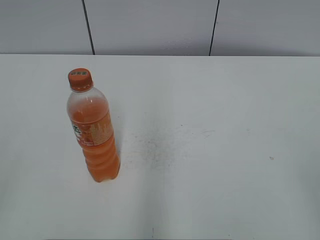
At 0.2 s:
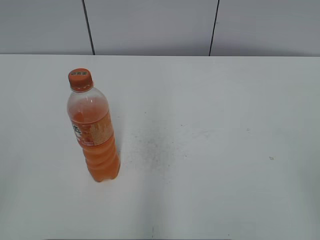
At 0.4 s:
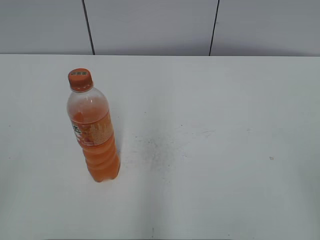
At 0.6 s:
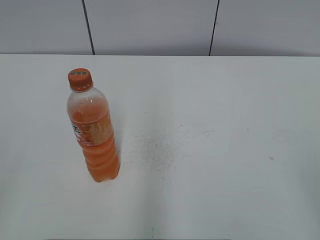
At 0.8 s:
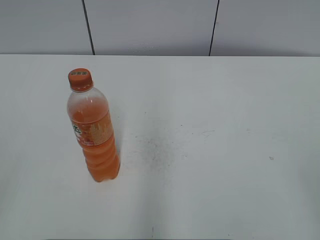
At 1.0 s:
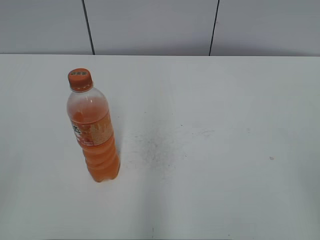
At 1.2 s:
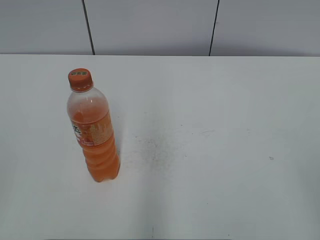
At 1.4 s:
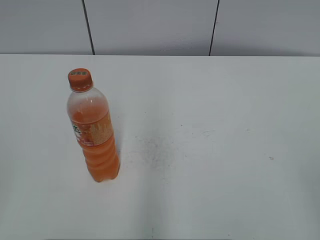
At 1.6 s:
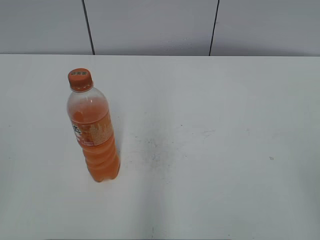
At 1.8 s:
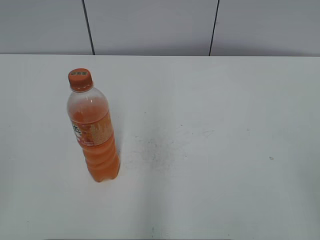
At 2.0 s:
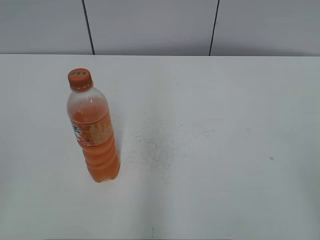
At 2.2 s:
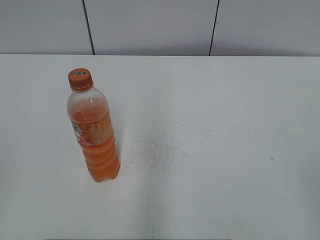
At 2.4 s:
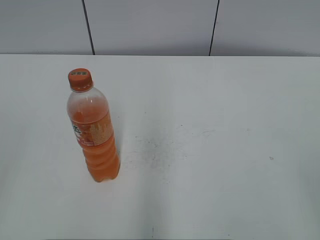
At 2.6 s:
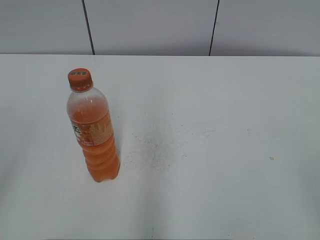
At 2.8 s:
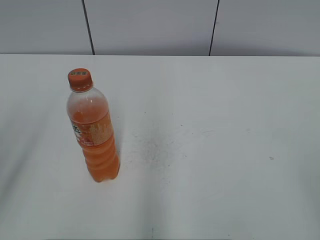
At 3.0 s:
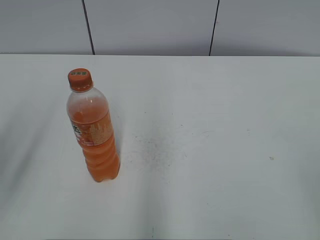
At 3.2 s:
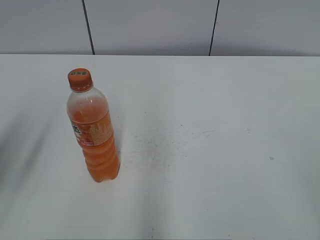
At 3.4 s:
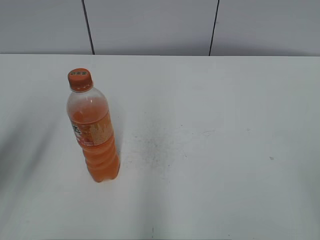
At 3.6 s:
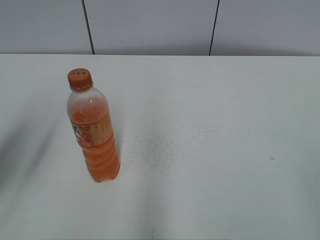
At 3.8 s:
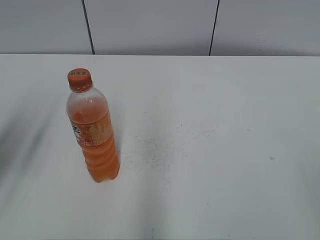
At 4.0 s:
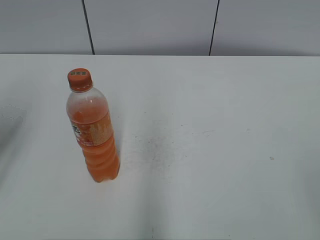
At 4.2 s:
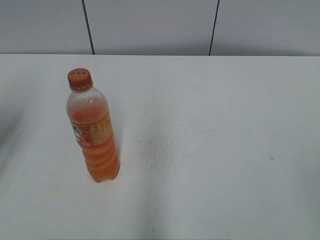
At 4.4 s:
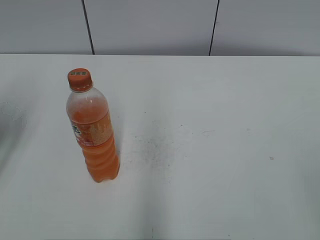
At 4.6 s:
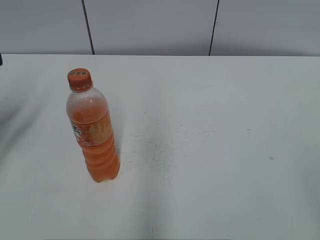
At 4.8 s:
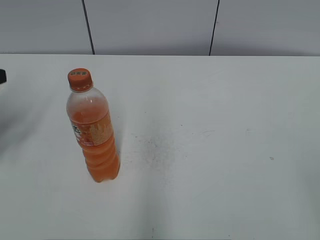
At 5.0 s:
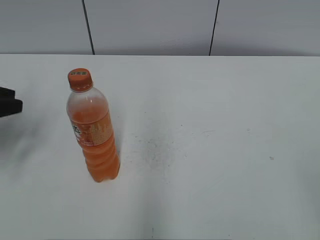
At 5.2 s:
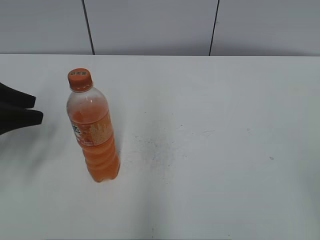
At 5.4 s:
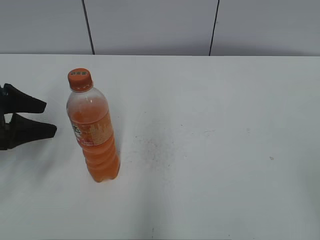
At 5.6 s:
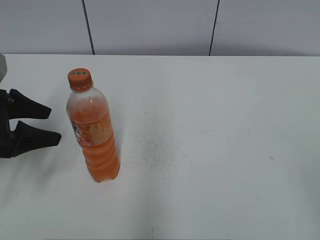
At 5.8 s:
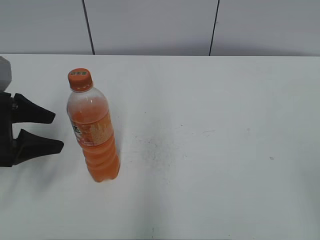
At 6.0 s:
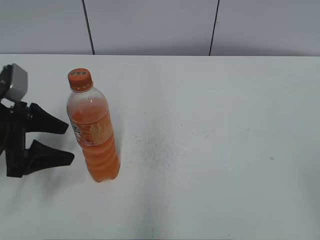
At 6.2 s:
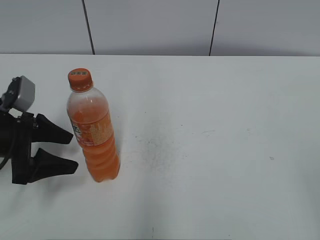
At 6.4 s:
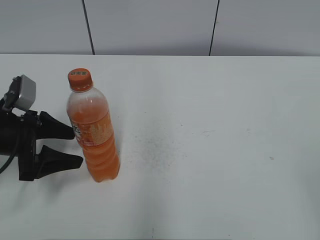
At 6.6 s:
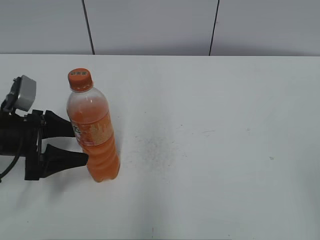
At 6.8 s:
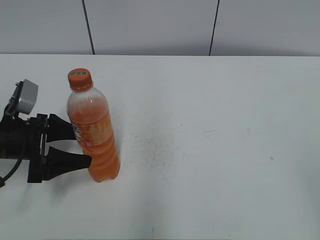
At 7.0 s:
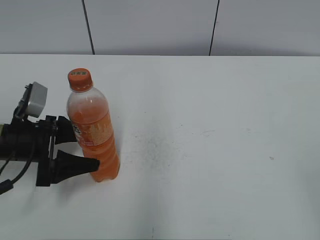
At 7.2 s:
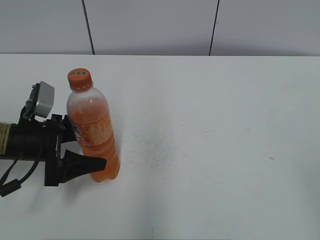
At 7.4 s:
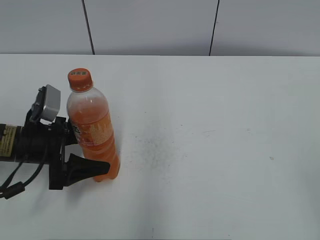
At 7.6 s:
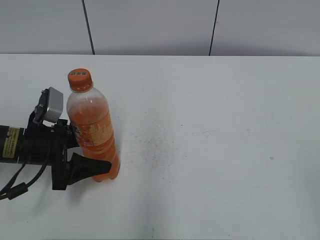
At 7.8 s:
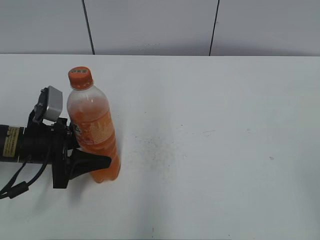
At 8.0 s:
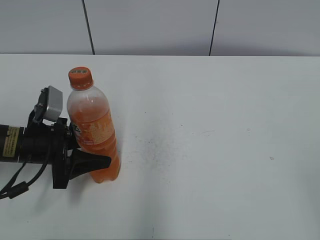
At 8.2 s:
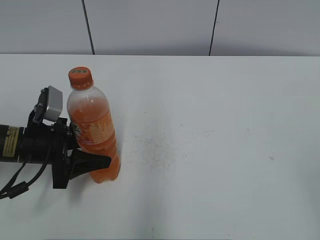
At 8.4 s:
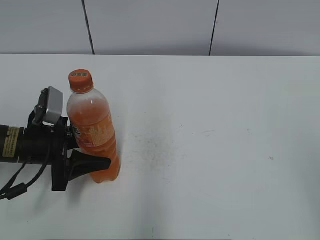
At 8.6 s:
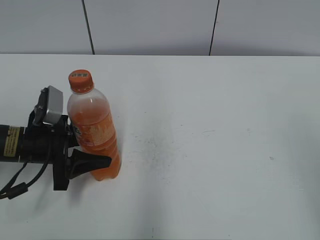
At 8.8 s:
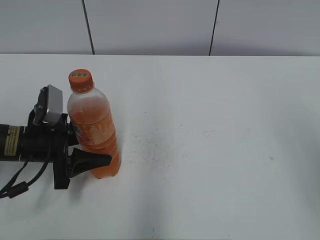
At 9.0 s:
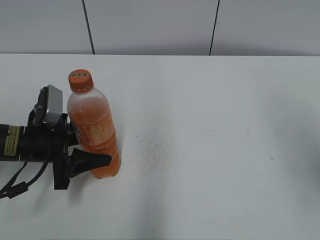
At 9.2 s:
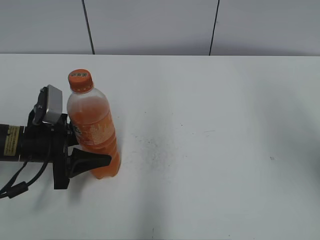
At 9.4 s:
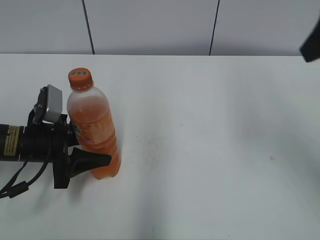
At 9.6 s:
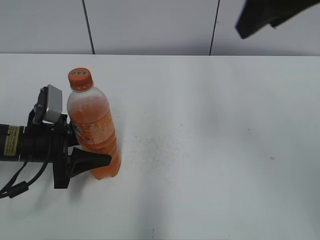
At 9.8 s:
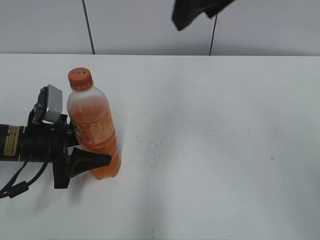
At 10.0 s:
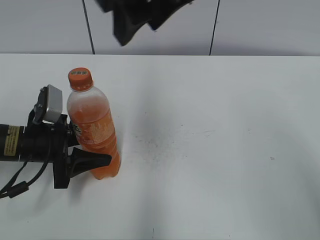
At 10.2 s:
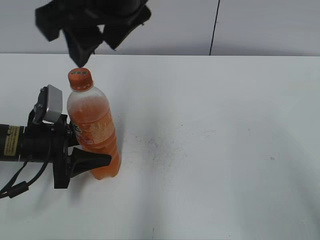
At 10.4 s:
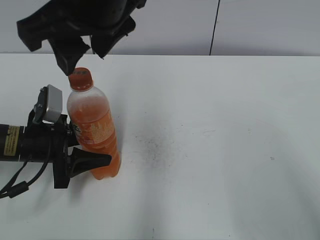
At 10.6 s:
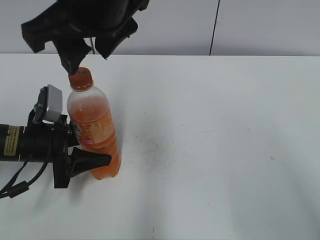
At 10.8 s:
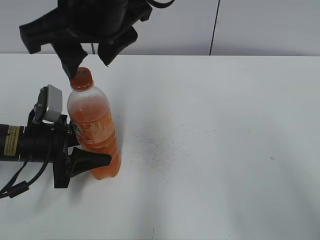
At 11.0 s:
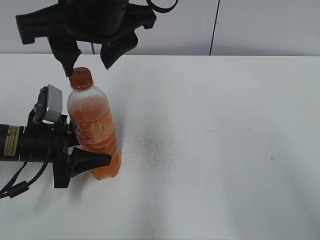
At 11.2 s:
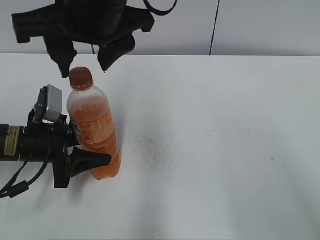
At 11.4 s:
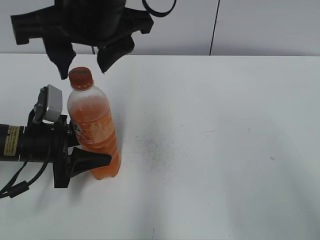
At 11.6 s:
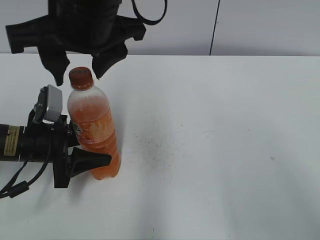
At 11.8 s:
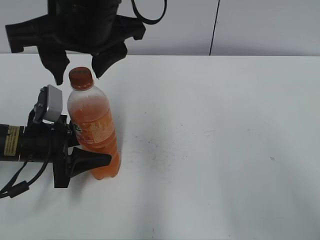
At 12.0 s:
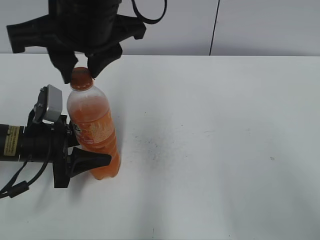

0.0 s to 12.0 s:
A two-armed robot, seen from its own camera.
Step, 0.0 to 8.0 s: Grab the Mirinda with the left hand.
1.6 to 3.0 s: The left gripper heads forward, covering approximately 15 cm.
3.0 to 4.4 s: The left gripper goes about 15 cm forward and downward.
4.4 to 6.0 s: The left gripper heads downward and to the right, covering some 10 cm, and opens its fingers.
6.0 to 7.6 s: The left gripper is displaced downward and to the right by approximately 10 cm.
7.6 to 9.0 s: The right gripper goes roughly 15 cm forward and upward. The left gripper closes its fingers.
9.0 to 10.4 s: The right gripper is displaced to the left by roughly 35 cm.

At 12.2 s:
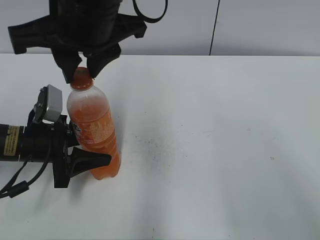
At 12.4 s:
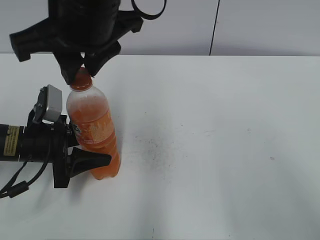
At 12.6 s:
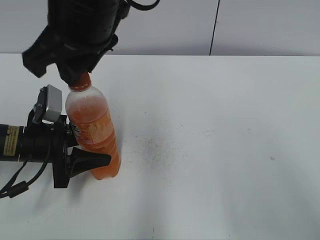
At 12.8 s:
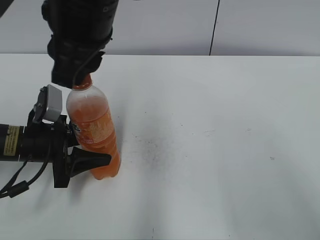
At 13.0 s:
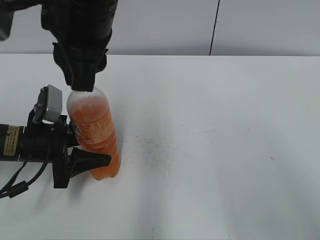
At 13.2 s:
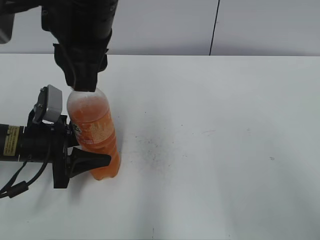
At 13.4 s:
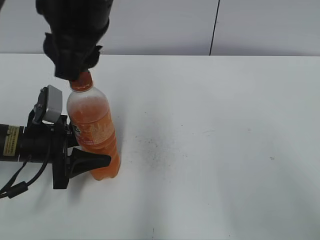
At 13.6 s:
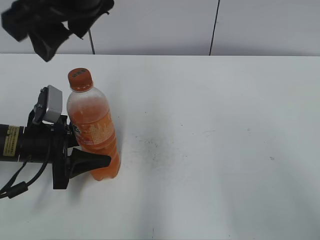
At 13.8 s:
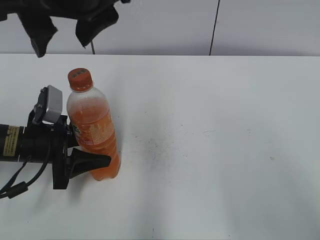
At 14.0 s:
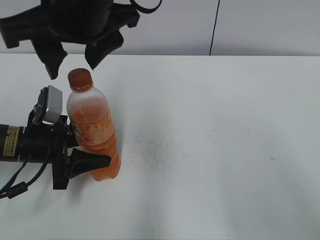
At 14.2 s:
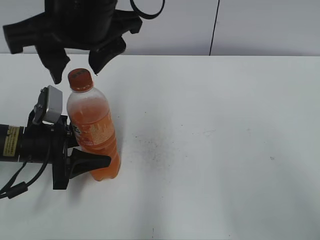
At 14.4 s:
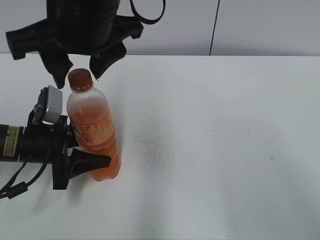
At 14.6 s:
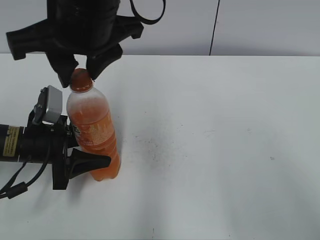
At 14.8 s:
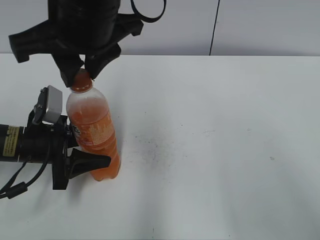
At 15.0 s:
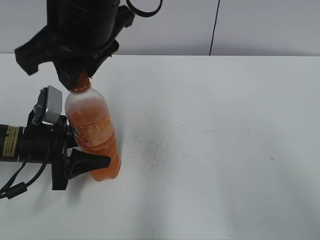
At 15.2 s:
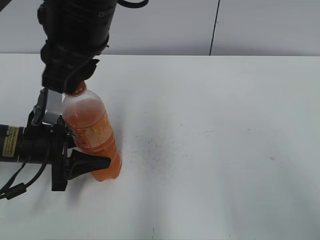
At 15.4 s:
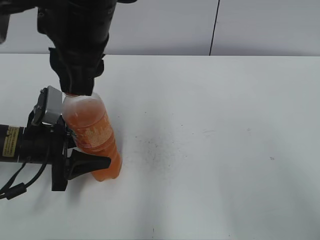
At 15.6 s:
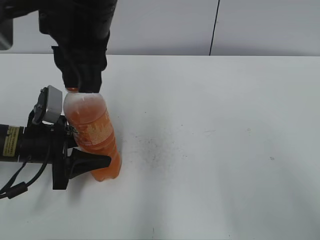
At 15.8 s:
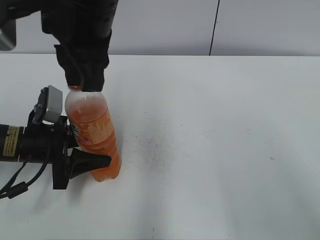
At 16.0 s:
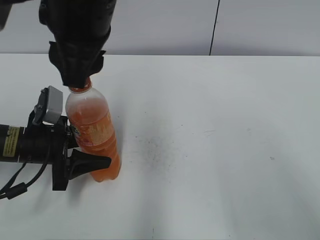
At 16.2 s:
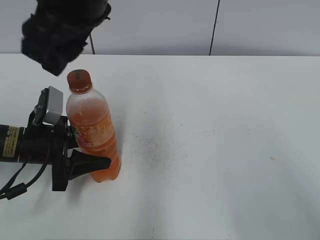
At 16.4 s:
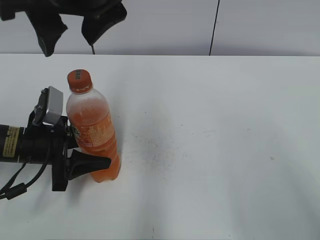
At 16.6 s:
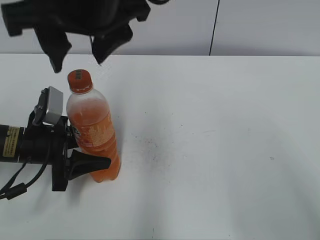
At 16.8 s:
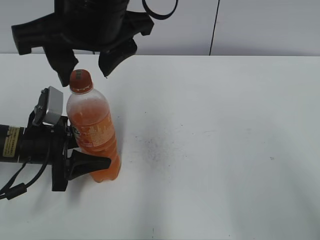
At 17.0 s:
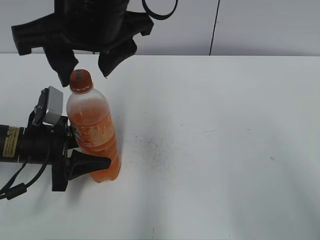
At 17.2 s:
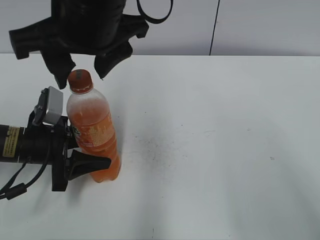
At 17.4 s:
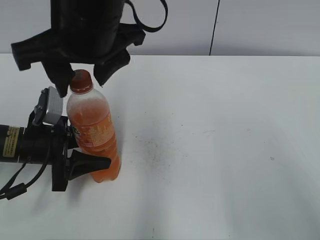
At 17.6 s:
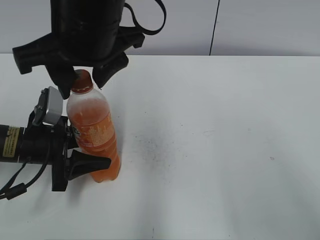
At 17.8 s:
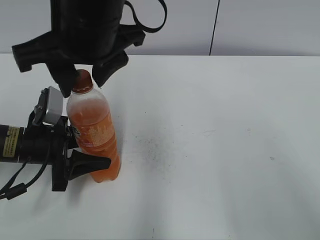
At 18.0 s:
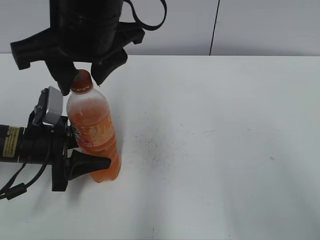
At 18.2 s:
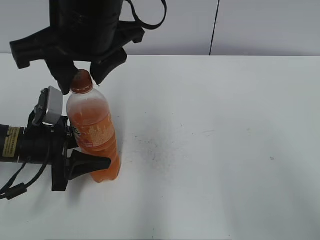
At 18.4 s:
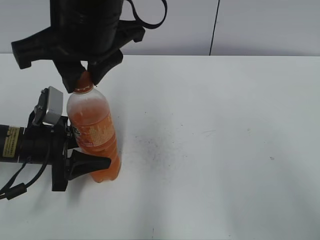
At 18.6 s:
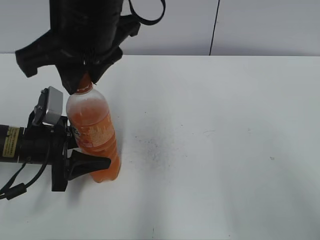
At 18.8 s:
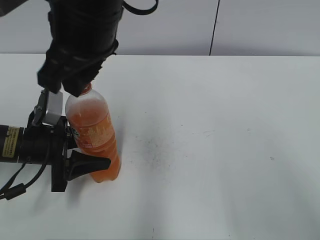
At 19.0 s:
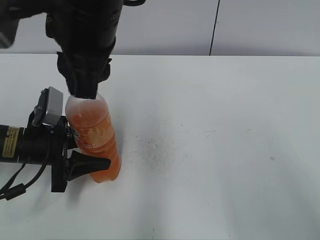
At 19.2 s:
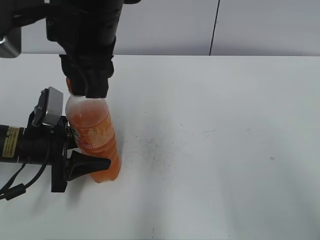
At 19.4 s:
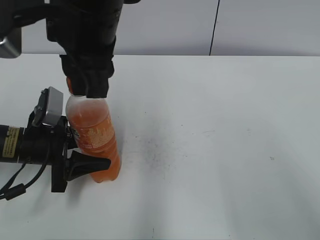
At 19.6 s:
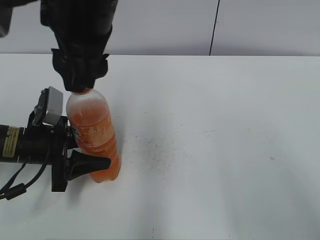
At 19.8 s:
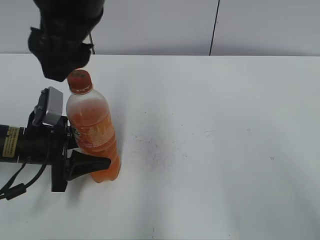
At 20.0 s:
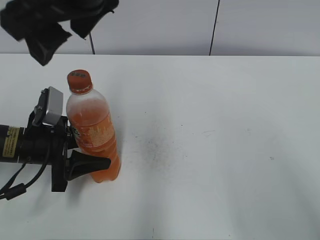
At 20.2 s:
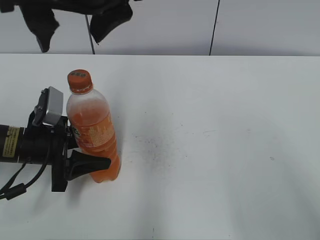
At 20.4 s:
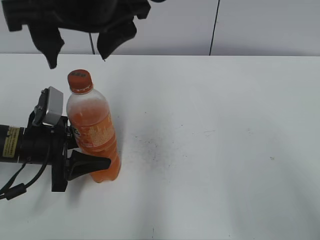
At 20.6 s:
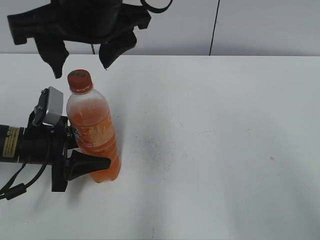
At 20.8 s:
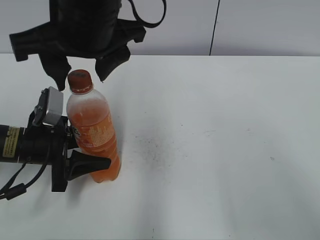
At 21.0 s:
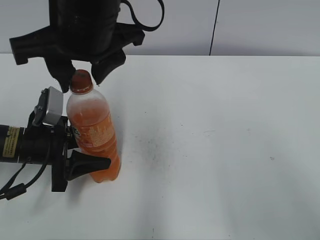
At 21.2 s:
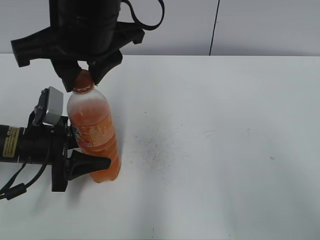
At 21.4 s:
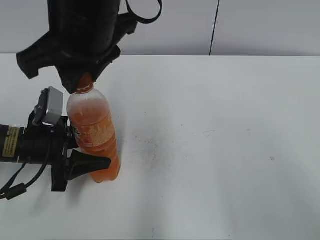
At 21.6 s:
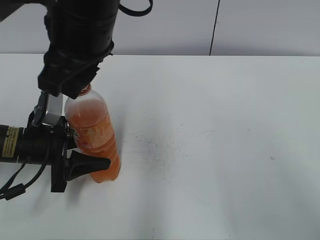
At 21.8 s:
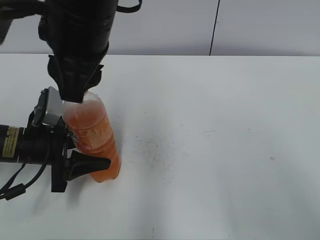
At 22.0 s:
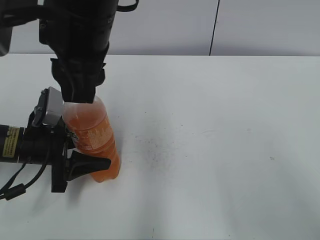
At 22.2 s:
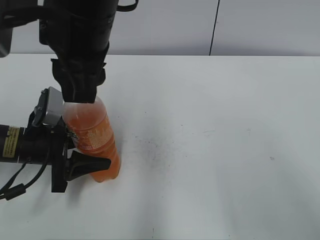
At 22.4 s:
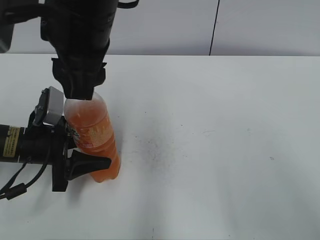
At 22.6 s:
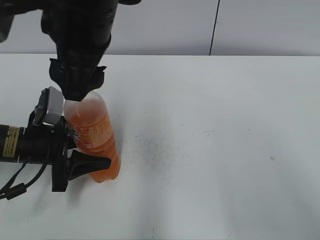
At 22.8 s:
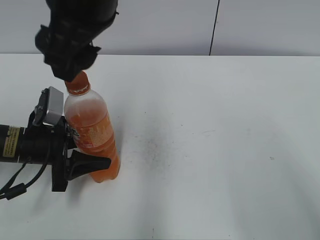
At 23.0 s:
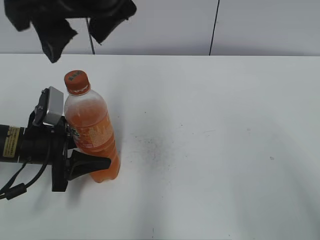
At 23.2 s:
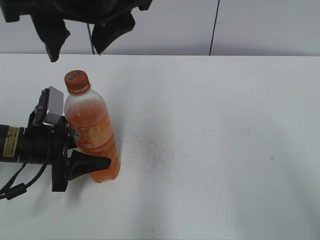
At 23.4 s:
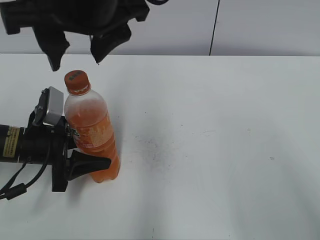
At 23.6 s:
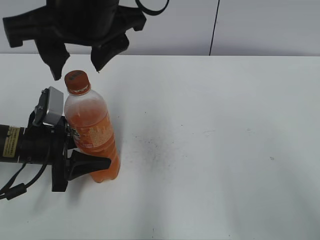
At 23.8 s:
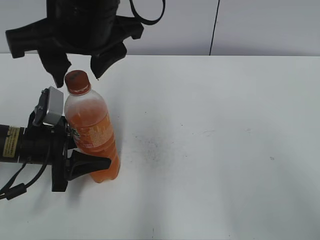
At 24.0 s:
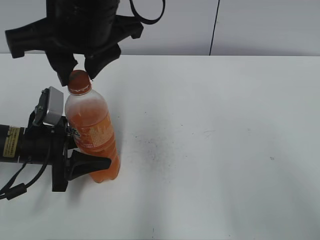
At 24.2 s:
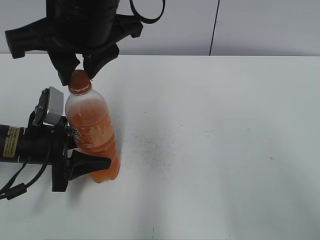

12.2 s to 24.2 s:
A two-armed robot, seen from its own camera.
12.2 to 13.8 s: The right gripper opens its fingers.
13.8 to 15.2 s: The right gripper closes up.
15.2 to 16.6 s: The right gripper opens.
16.6 to 18.2 s: The grippers stay close to where they were, moving slightly.
18.2 to 19.8 s: The right gripper opens its fingers.
19.8 to 21.2 s: The right gripper closes.
21.2 to 22.6 s: The right gripper opens.
22.6 to 24.2 s: The right gripper closes up.
